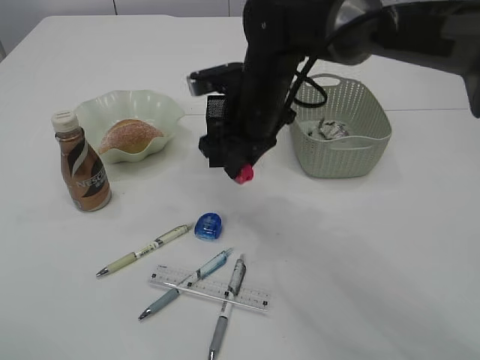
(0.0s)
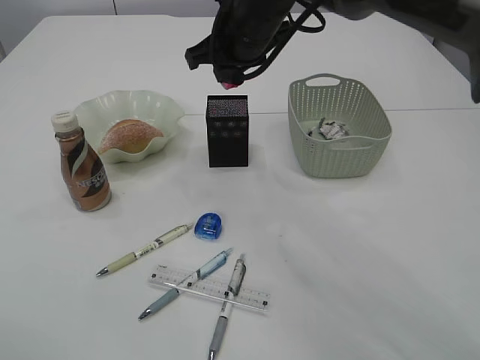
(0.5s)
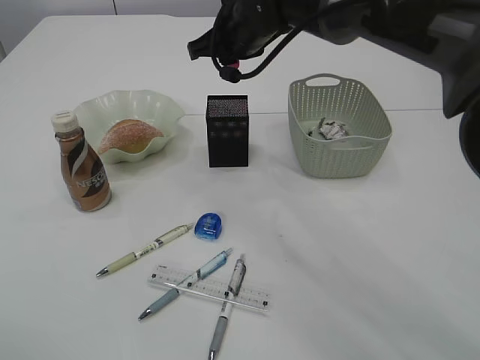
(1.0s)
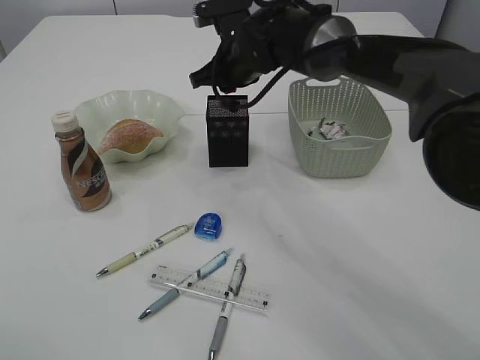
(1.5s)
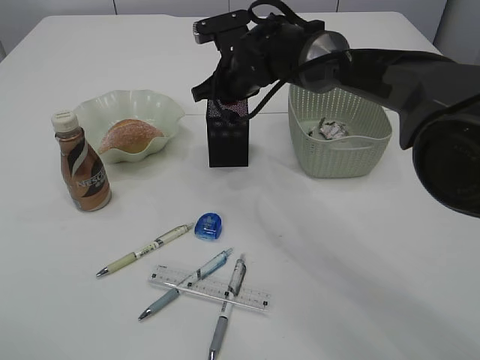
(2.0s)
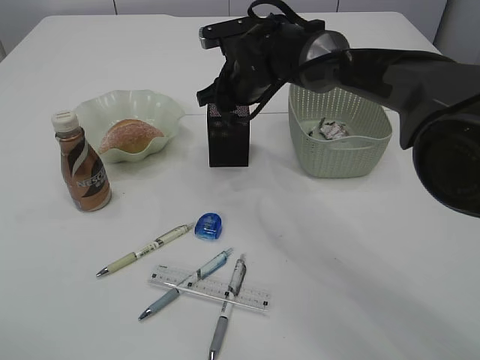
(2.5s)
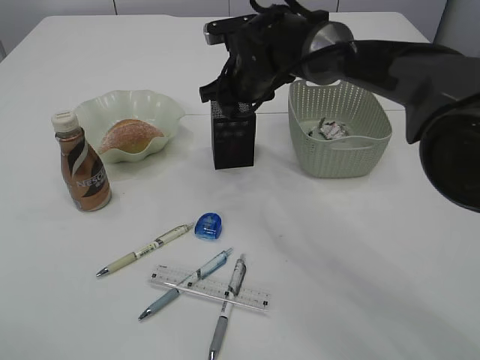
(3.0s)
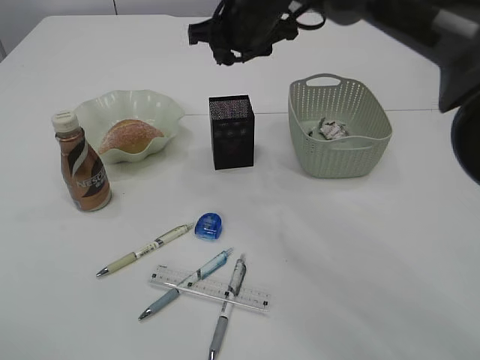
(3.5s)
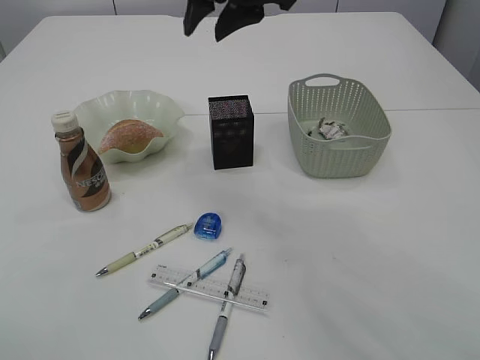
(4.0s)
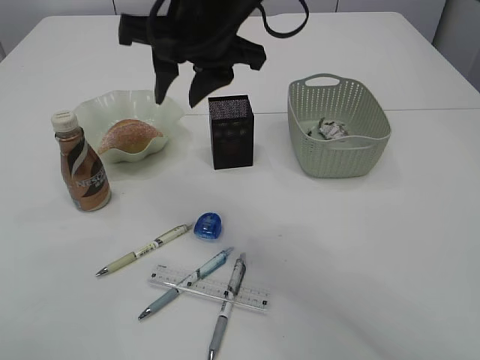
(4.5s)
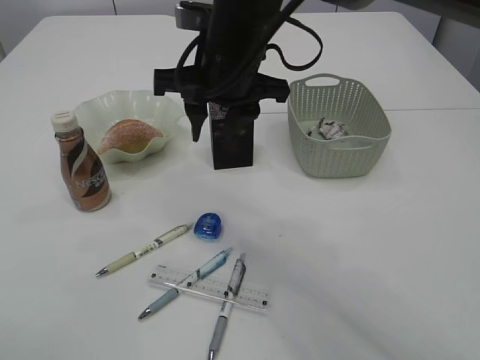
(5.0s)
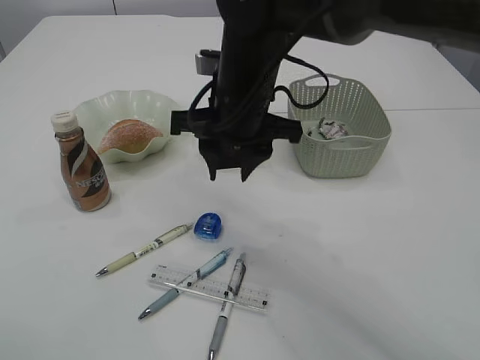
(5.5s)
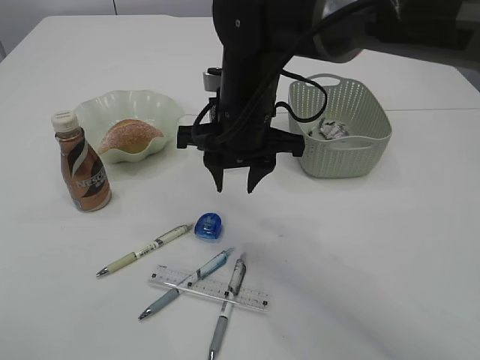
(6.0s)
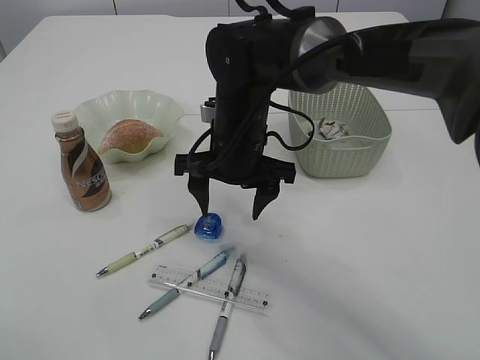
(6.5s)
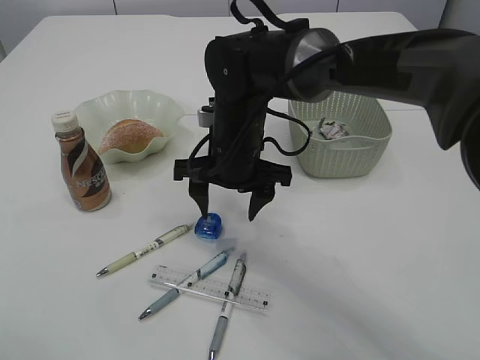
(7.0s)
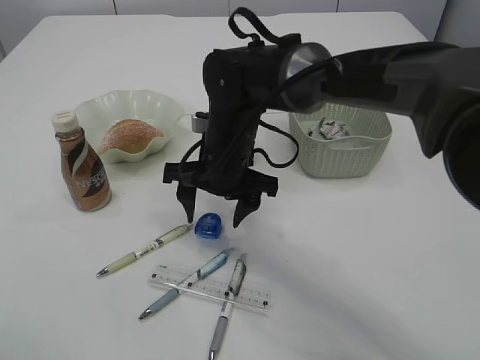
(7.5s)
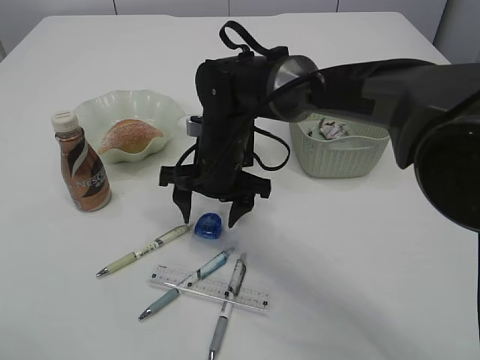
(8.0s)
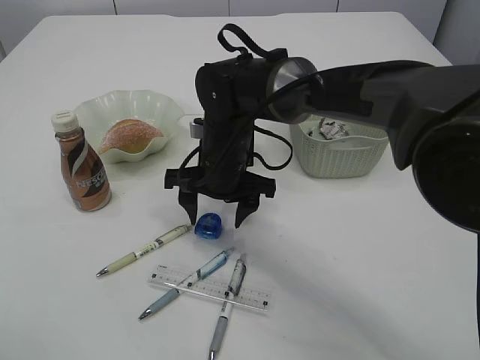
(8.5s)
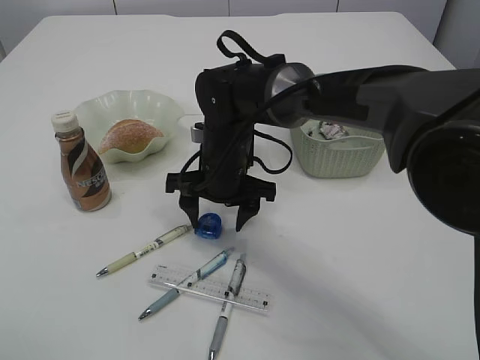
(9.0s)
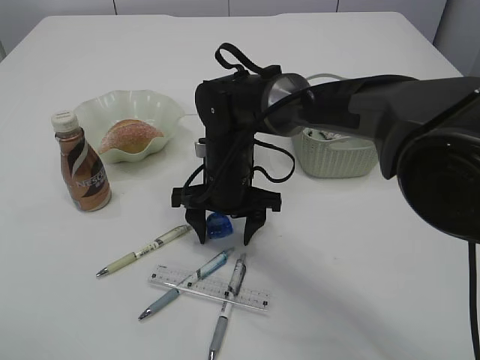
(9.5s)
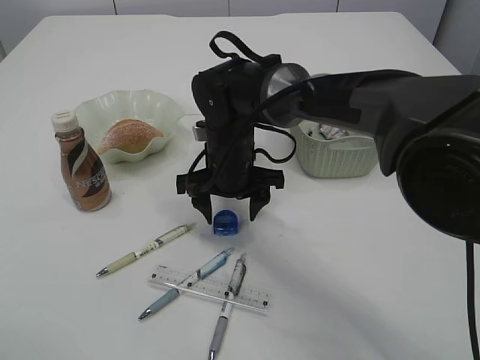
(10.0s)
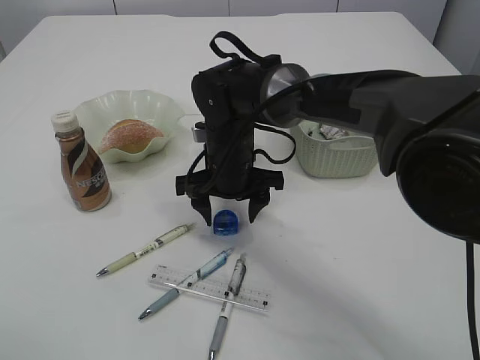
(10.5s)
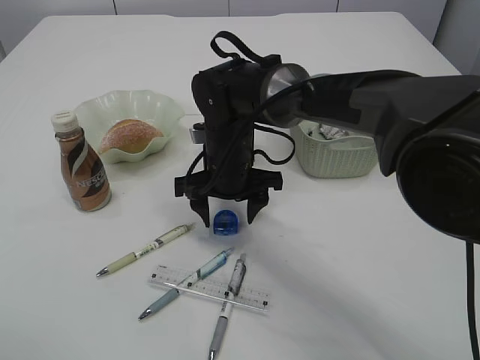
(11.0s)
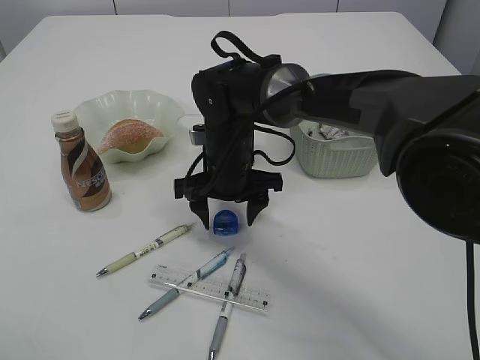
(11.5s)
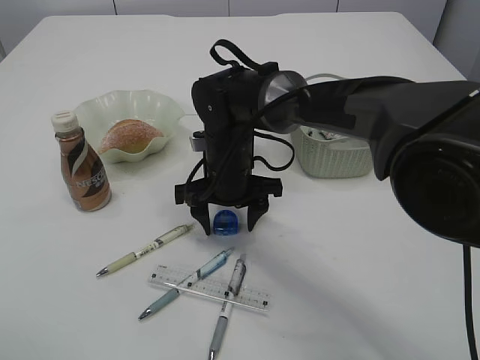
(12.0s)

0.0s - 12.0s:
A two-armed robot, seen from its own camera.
Step, 0.5s - 3.0s: Place the red pencil sharpener into the pen holder.
0.0s - 2.0s: The right gripper is displaced forward by approximately 10 cm.
2.0s - 4.0s: The right gripper goes about 20 cm upward and backward.
4.0s - 6.0s: The right gripper moves downward, approximately 15 cm.
6.0s - 8.0s: The right gripper goes roughly 10 cm downward.
8.0s - 10.0s: The grippers stay close to where they were, moving slightly.
10.0s - 12.0s: Both grippers stay put.

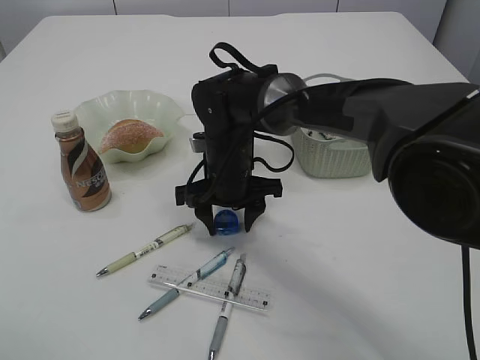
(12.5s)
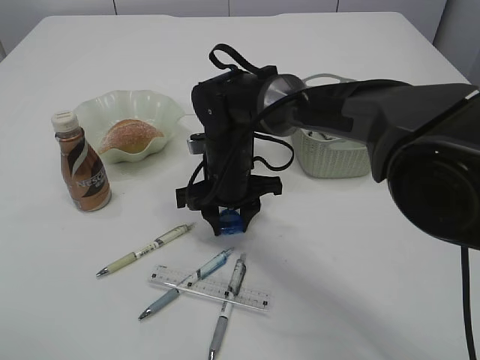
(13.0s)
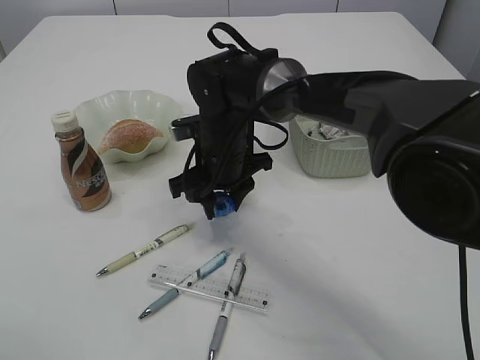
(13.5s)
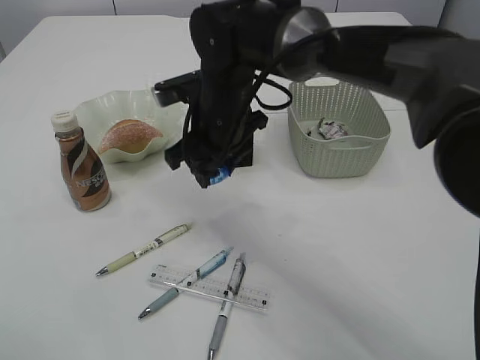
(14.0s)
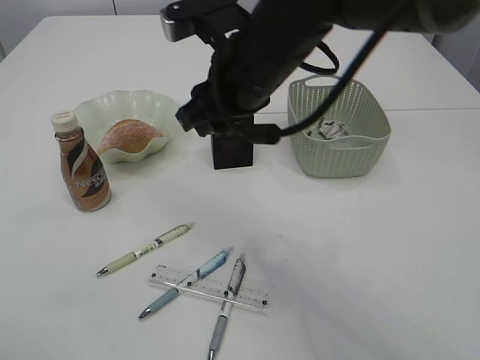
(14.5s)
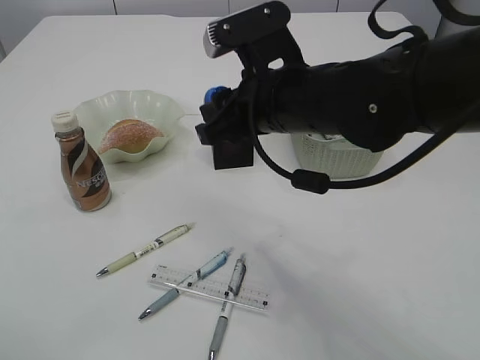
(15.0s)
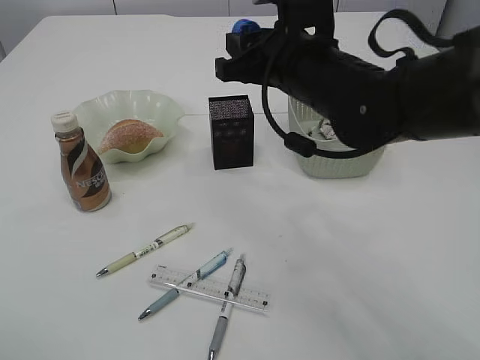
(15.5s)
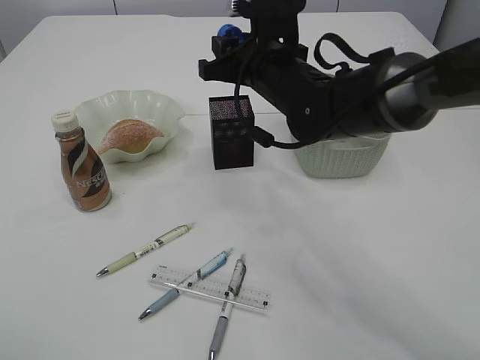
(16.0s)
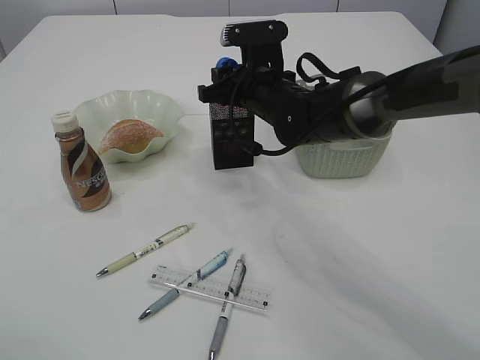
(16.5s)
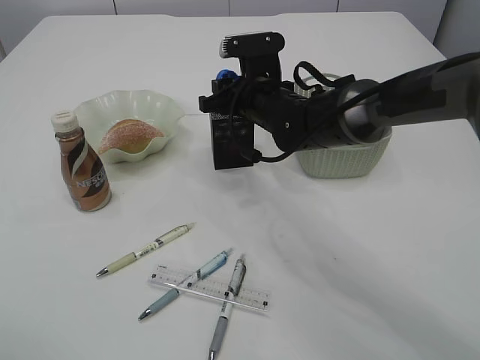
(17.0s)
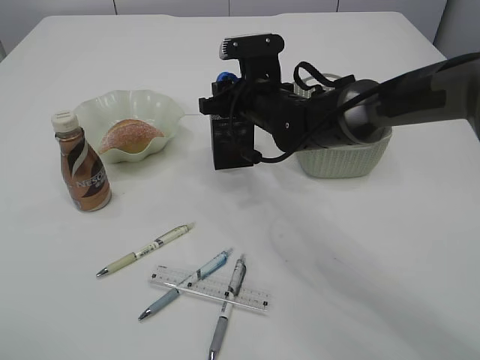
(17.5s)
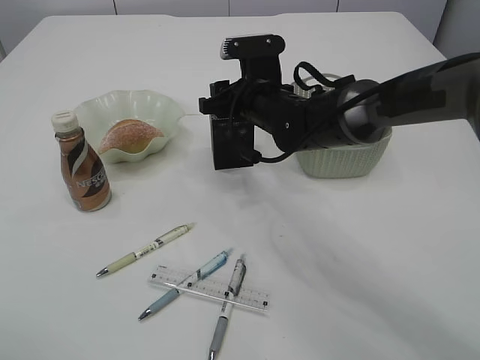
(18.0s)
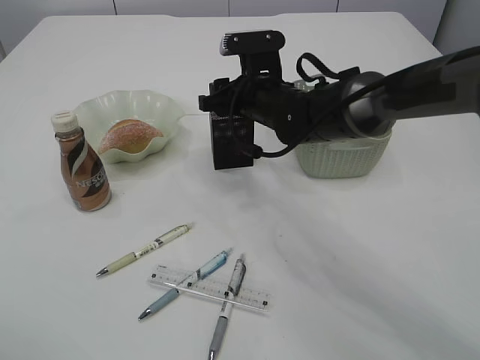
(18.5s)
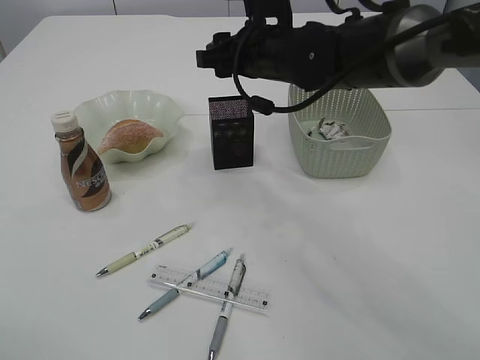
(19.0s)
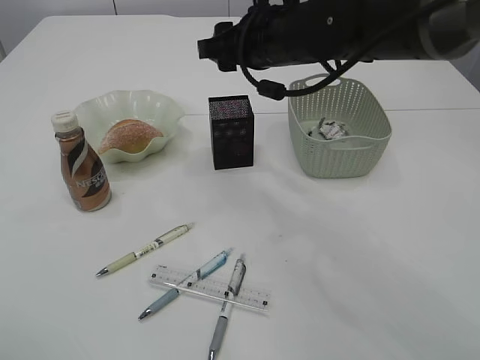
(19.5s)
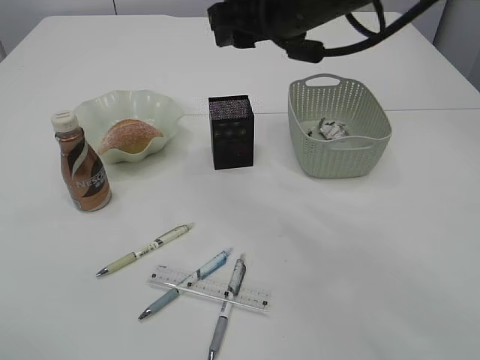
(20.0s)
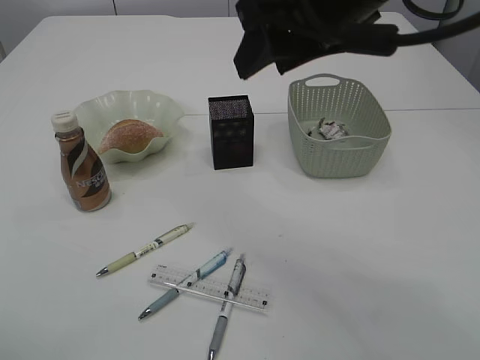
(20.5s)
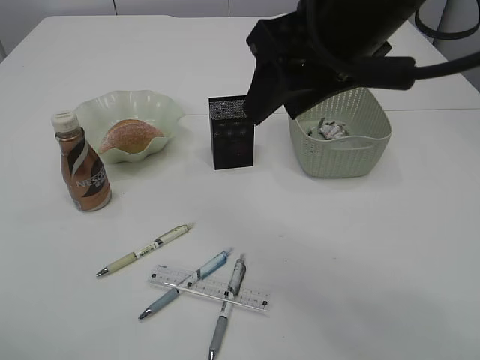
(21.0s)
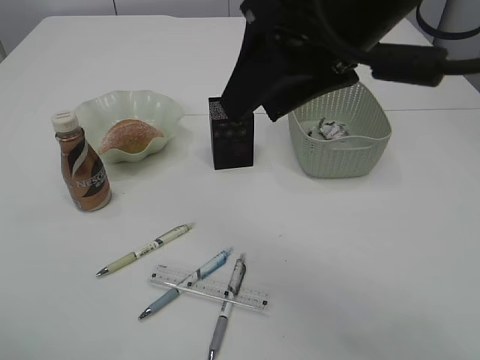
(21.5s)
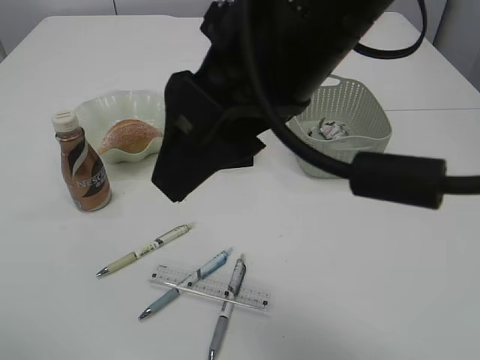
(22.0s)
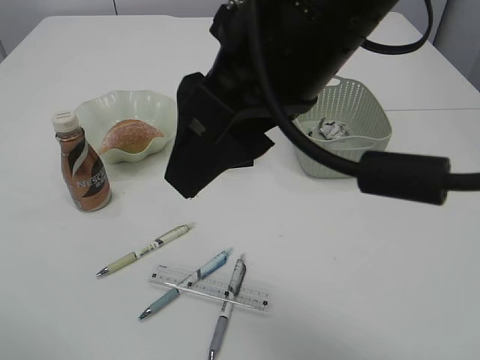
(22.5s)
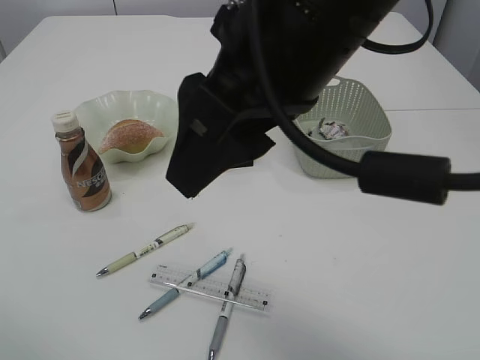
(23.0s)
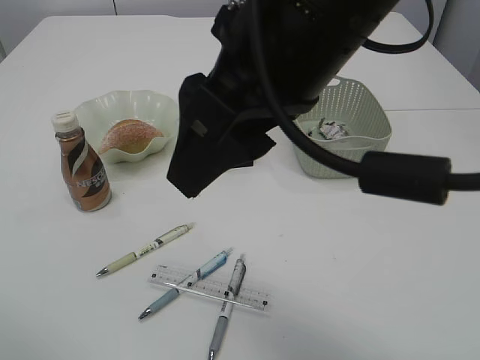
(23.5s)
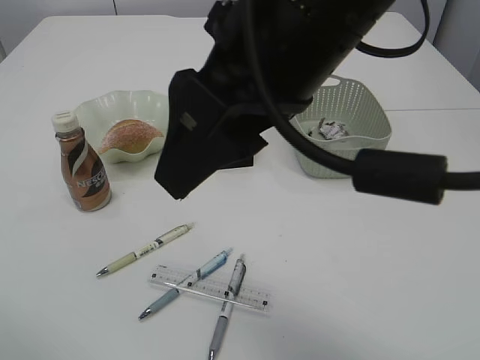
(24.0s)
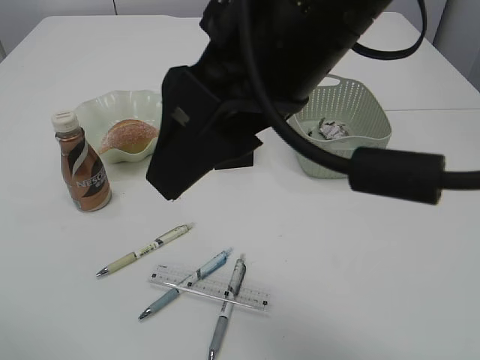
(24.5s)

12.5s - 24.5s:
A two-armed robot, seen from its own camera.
Step, 14.5s - 18.5s: Place the blue pencil sharpener into the pen holder.
12.5s - 14.5s: The right gripper goes some 15 cm upward.
14.5s - 16.5s: The right gripper shifts approximately 15 cm forward and downward.
16.5s - 18.5s: The grippers make only small movements.
18.5s - 20.5s: The right gripper is displaced upward and backward by some 25 cm.
20.5s - 22.5s: The right gripper moves backward and to the left, some 10 cm.
22.5s - 24.5s: Neither gripper changes place.

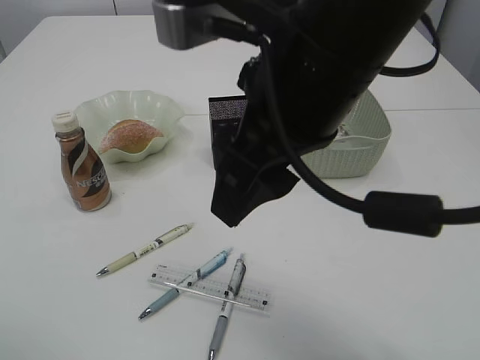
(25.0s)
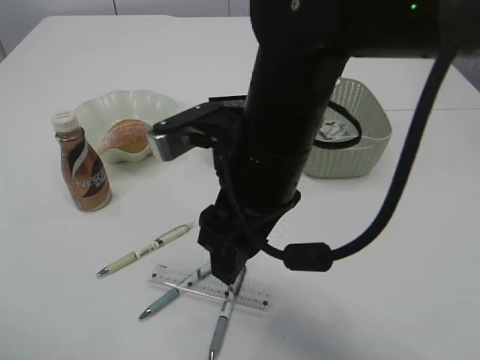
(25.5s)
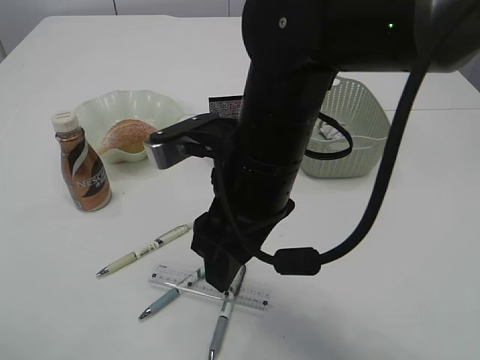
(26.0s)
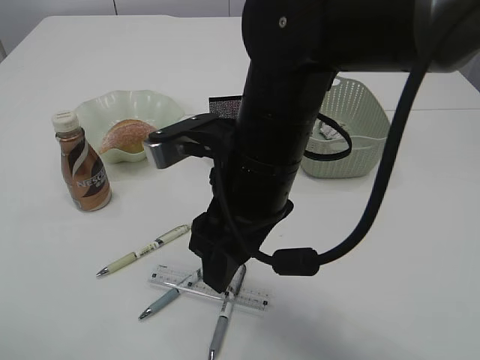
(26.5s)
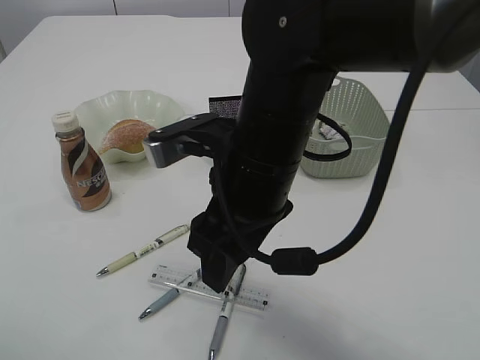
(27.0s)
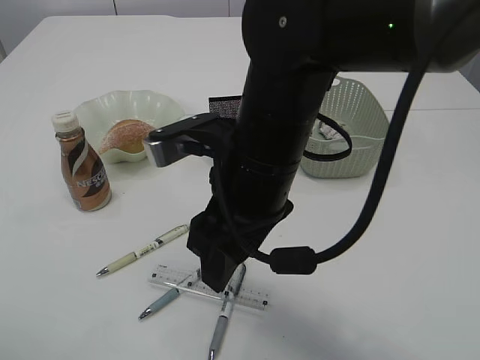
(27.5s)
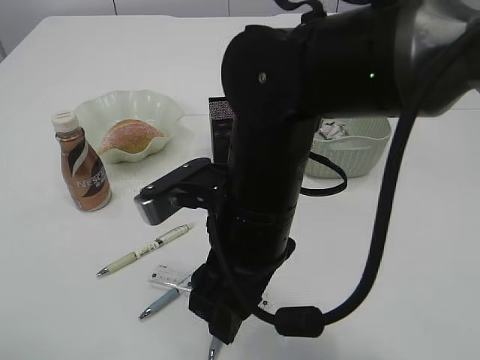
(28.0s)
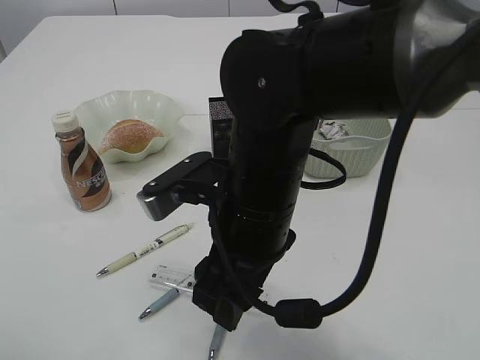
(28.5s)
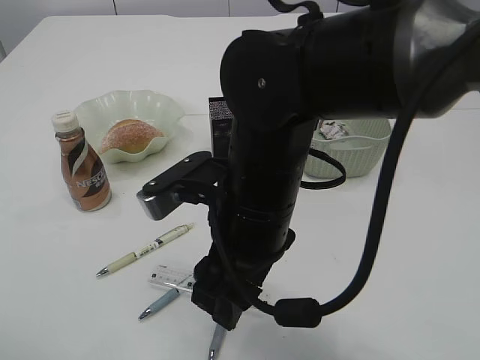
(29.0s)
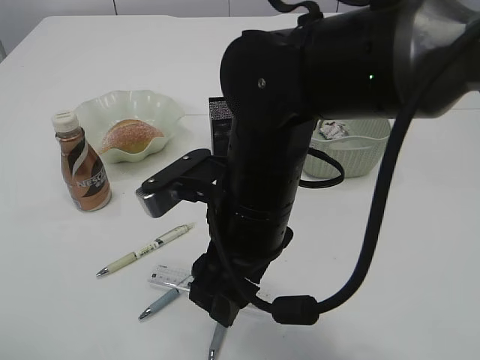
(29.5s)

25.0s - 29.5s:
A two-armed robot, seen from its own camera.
25.0s - 27.0s: The right gripper moves downward, some 10 cm.
